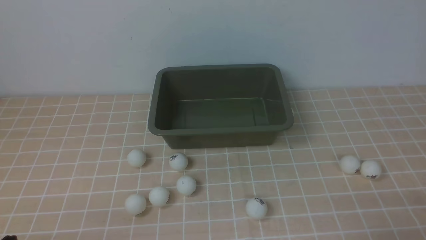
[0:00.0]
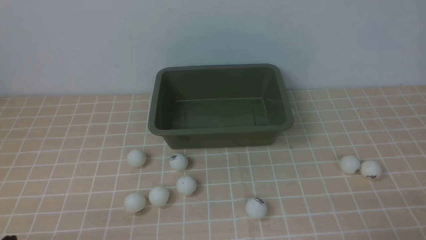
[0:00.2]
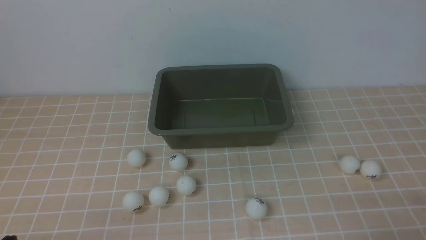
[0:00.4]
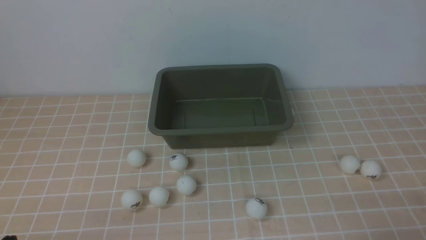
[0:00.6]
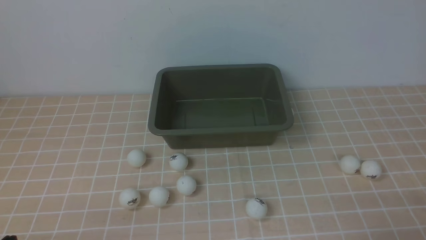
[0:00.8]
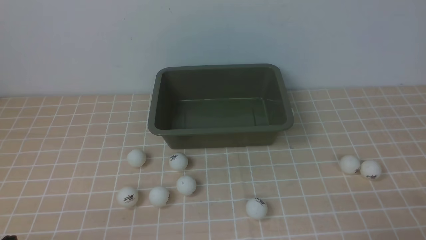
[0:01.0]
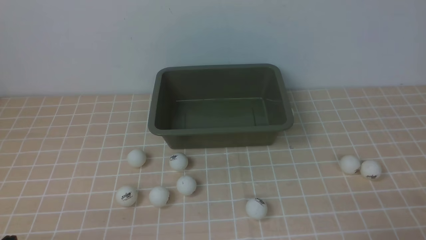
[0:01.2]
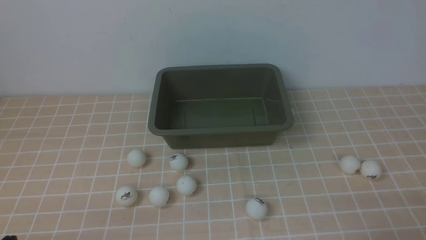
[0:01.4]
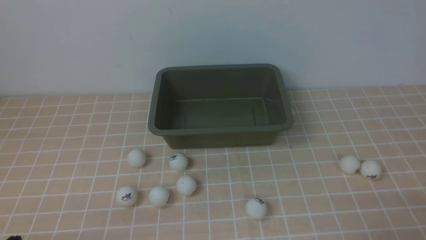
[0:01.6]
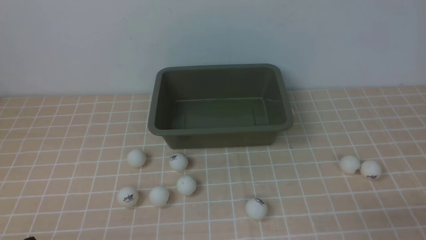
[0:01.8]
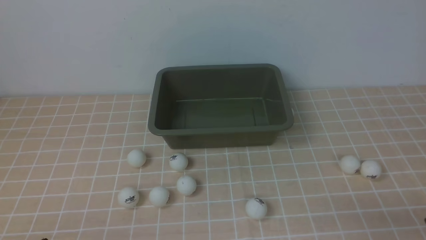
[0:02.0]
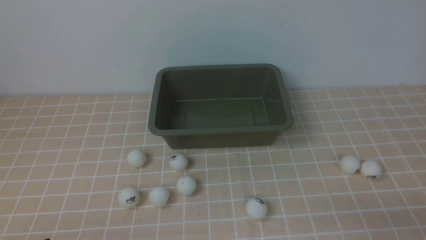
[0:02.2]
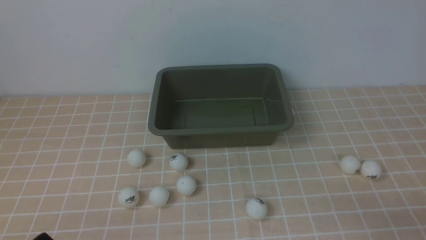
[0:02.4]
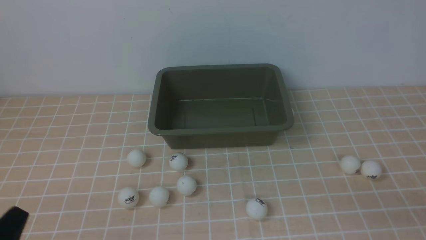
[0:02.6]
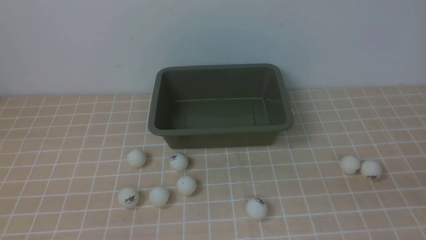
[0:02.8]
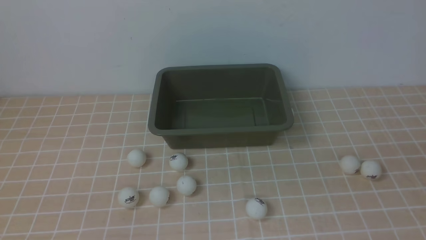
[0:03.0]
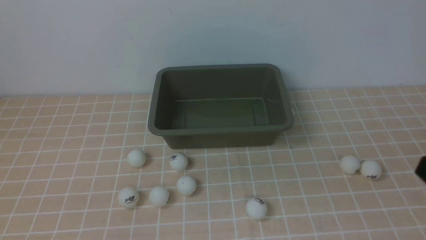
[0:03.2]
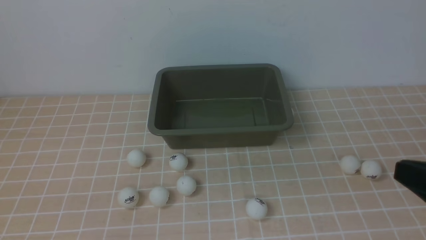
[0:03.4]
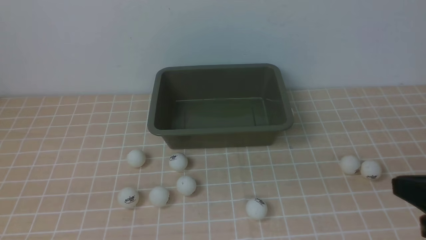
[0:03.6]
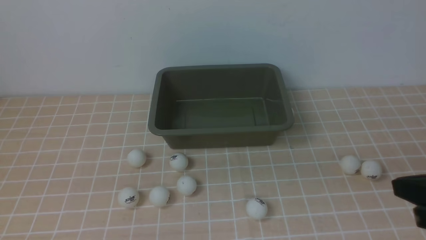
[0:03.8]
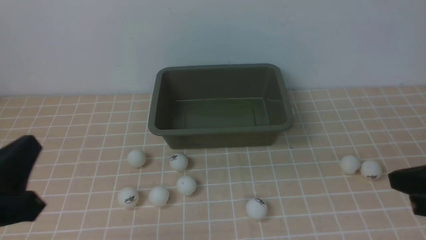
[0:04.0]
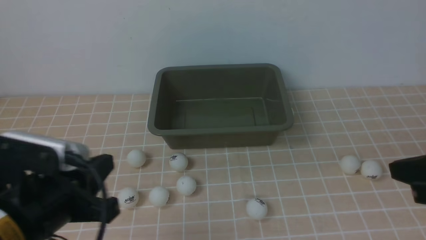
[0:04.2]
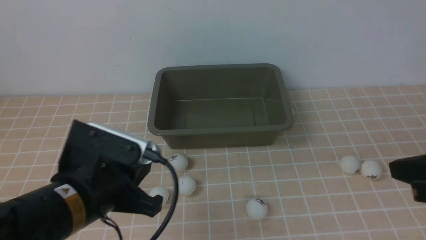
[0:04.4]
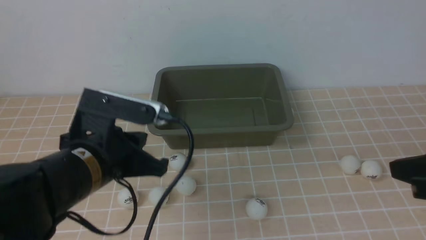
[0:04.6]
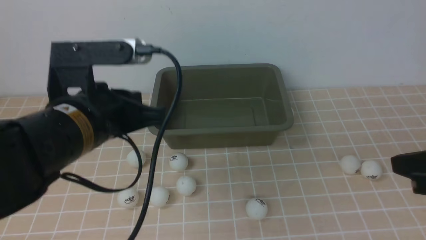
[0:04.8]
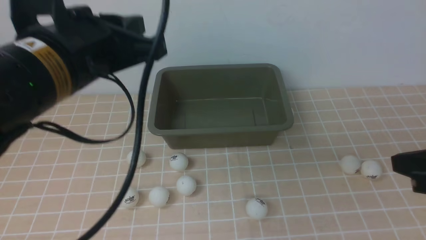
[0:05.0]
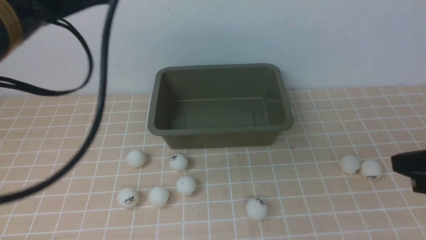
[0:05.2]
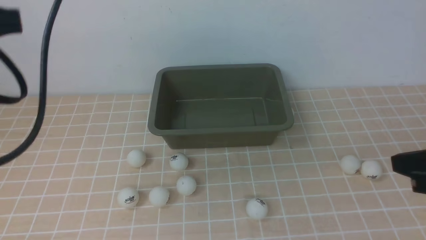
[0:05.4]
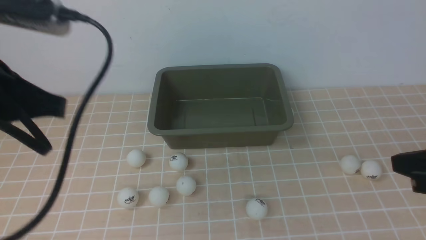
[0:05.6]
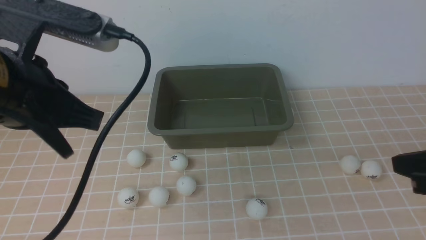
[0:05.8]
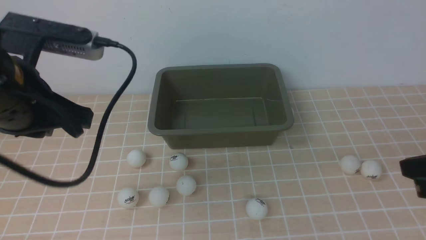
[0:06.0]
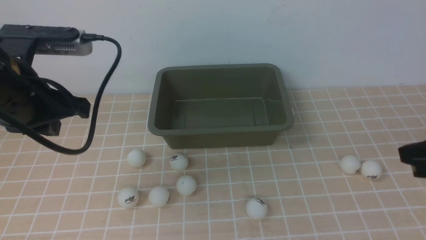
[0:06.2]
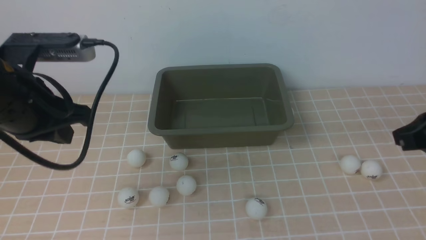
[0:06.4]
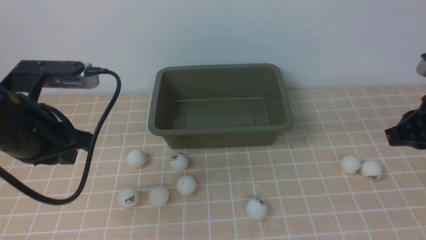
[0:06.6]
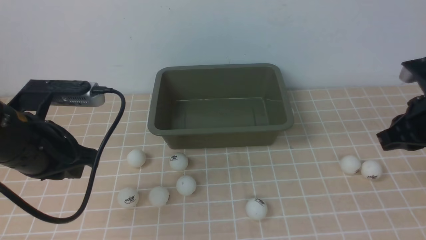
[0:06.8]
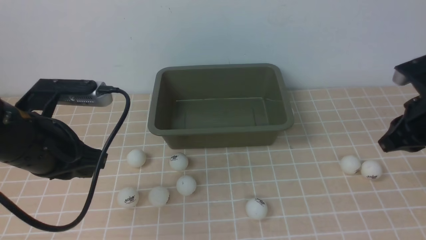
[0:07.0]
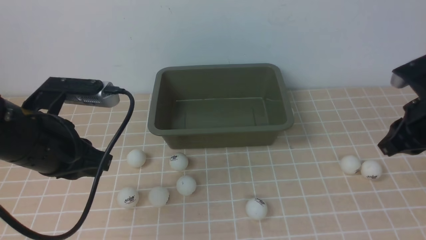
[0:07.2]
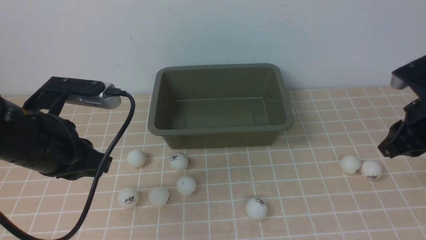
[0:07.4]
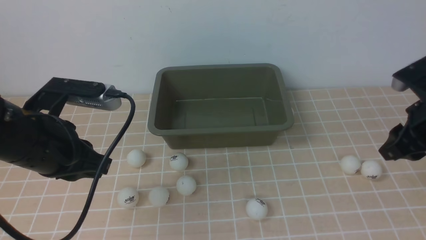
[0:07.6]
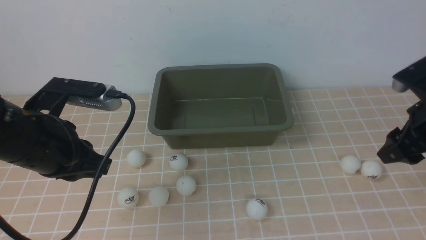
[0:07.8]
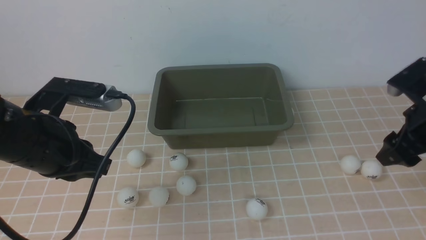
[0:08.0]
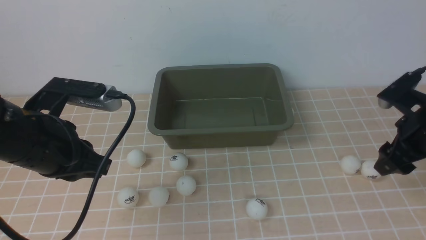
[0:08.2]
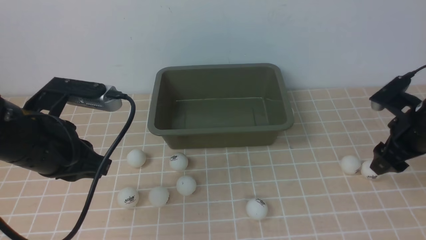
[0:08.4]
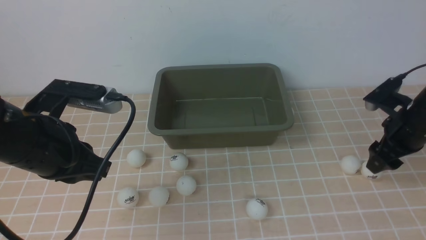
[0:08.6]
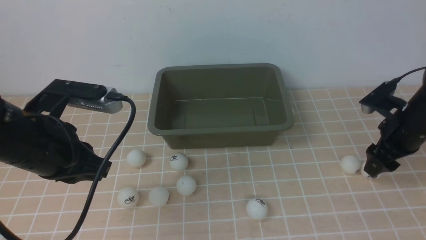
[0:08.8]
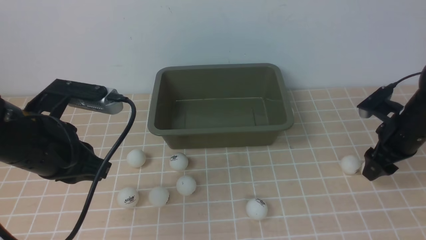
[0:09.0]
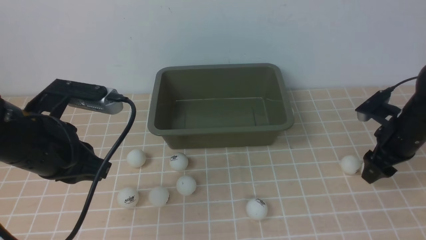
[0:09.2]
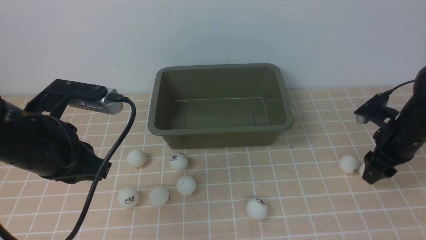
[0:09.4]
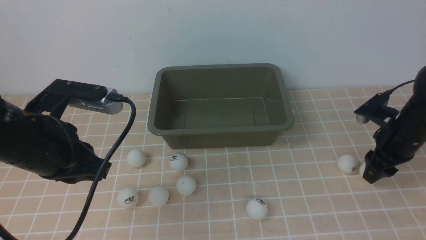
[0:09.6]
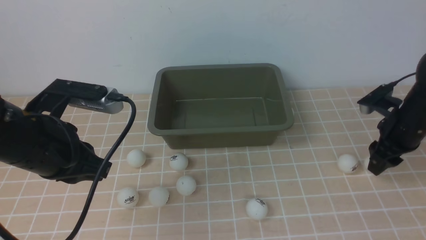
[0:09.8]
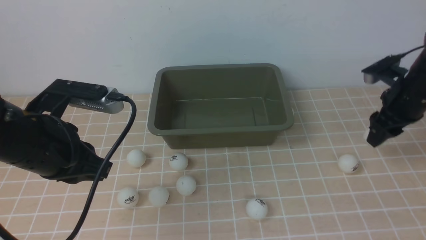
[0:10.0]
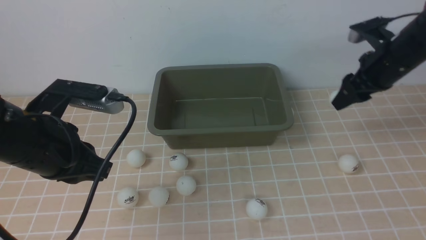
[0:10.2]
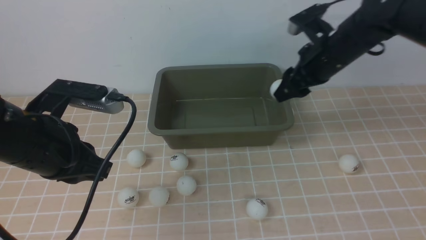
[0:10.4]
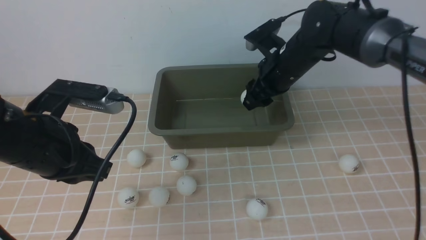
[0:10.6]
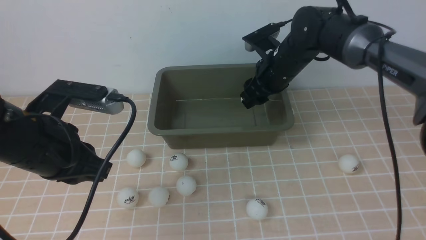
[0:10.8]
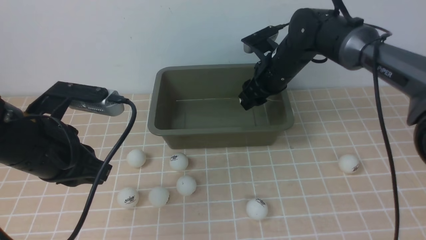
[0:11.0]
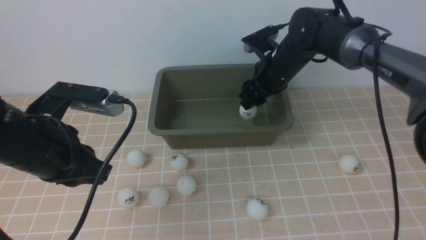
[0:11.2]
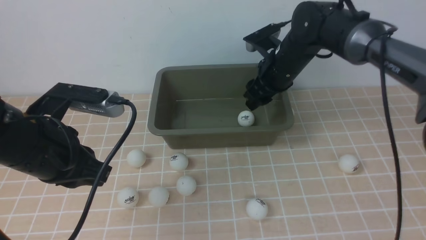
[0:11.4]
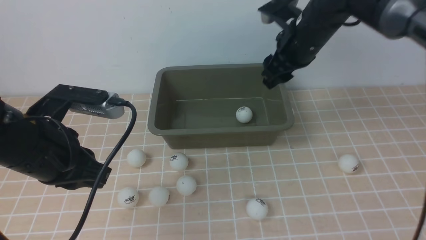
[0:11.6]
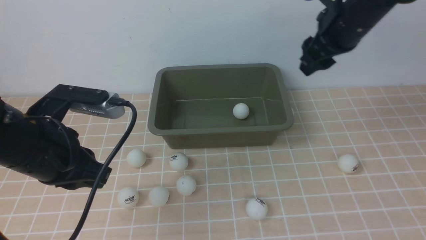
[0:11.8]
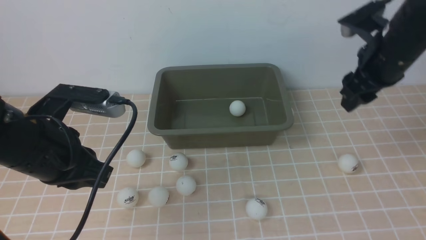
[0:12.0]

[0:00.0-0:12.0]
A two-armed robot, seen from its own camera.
Step, 0.0 to 9.8 s: use the right arm to clamp the table tennis ball closest to it.
Step, 10.0 to 11.6 s: use the right arm to put the table tennis ball into the box.
3.0 to 4.4 s: The right gripper goes approximately 10 cm forward; the left gripper travels forward and to the right by approximately 15 cm.
4.4 to 6.0 s: The left gripper is displaced upward and forward by about 15 cm.
6.0 to 7.6 s: The left gripper goes roughly 10 cm downward, while the right gripper is displaced forward by approximately 10 cm, and opens.
7.6 to 9.0 s: The right gripper heads downward and forward, covering about 10 cm, and opens.
9.0 to 10.4 s: The right gripper travels to the left, upward and forward by approximately 15 cm.
10.4 to 12.0 s: The right gripper reaches some 10 cm to the left, then returns.

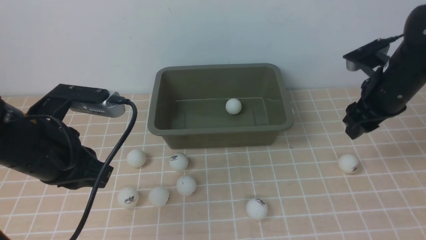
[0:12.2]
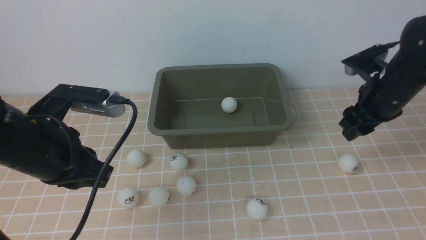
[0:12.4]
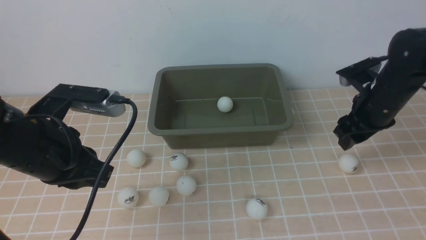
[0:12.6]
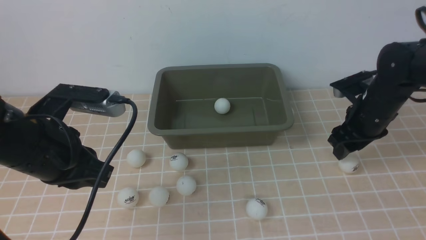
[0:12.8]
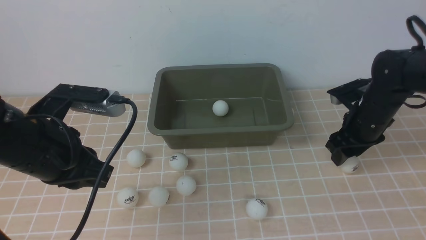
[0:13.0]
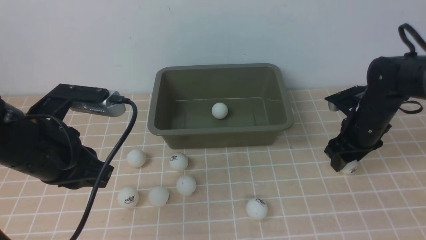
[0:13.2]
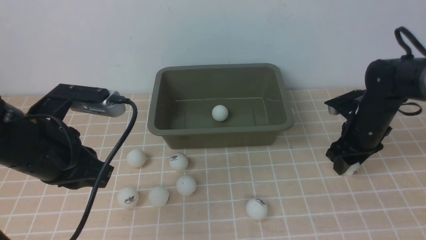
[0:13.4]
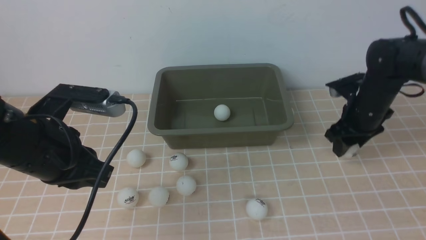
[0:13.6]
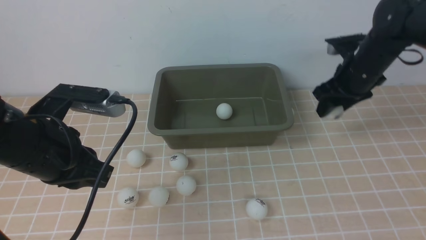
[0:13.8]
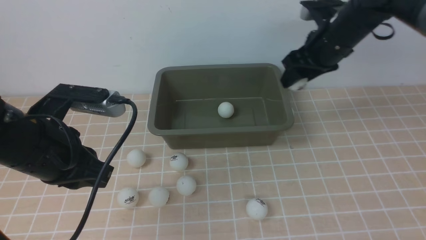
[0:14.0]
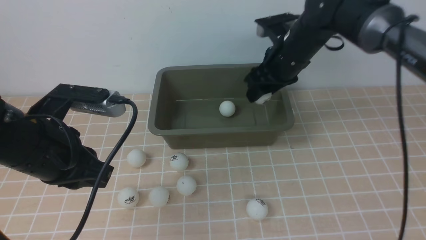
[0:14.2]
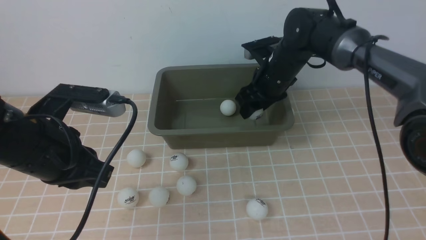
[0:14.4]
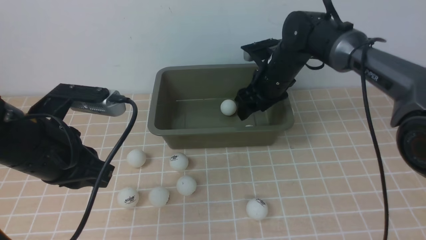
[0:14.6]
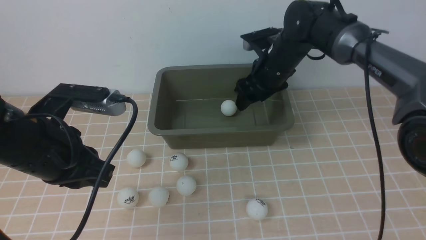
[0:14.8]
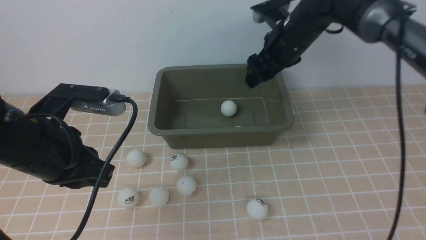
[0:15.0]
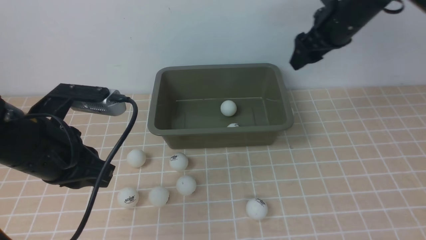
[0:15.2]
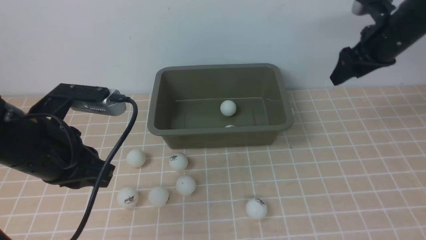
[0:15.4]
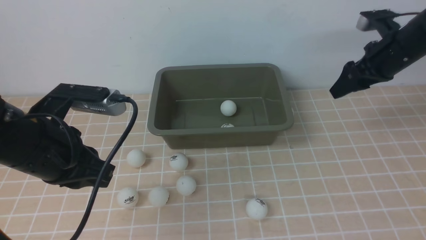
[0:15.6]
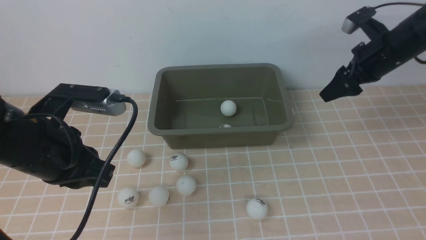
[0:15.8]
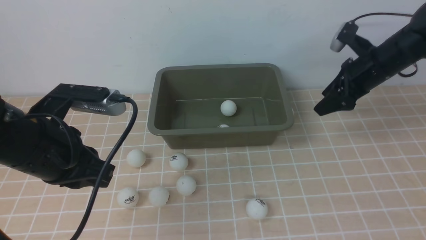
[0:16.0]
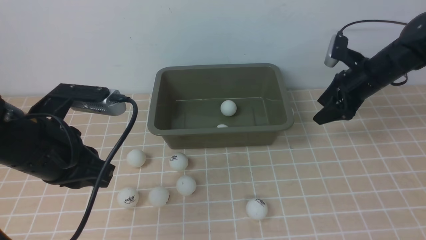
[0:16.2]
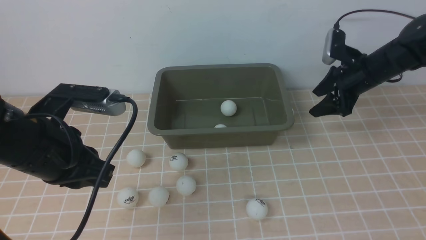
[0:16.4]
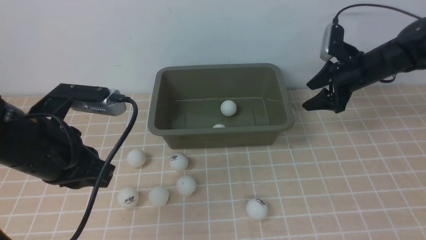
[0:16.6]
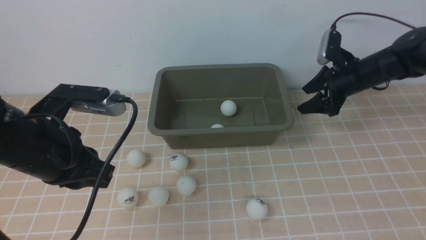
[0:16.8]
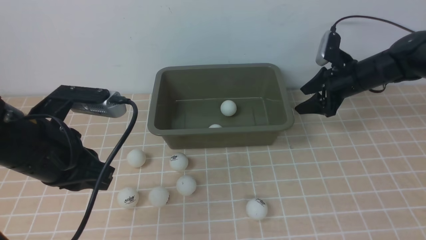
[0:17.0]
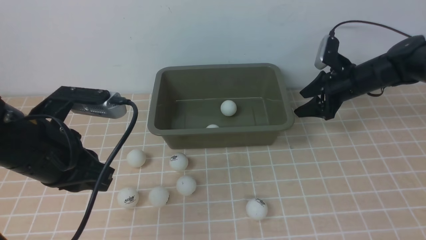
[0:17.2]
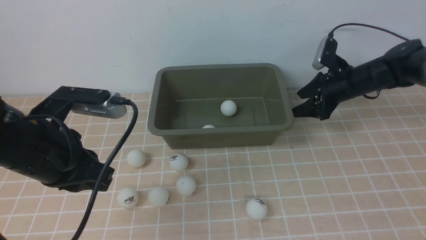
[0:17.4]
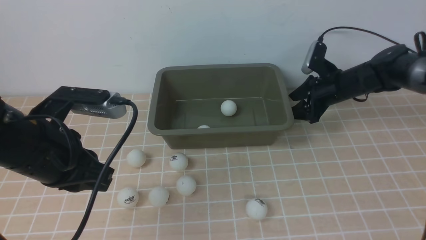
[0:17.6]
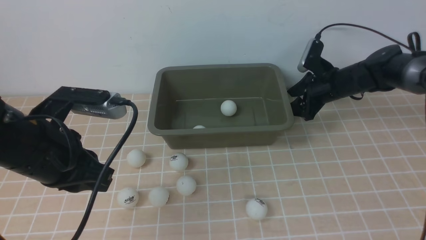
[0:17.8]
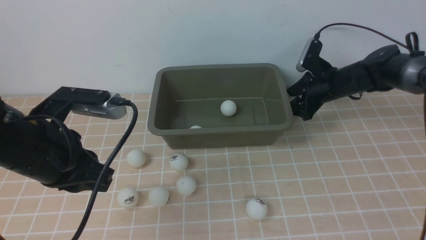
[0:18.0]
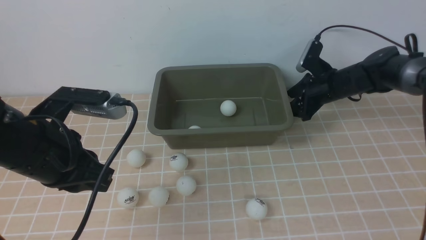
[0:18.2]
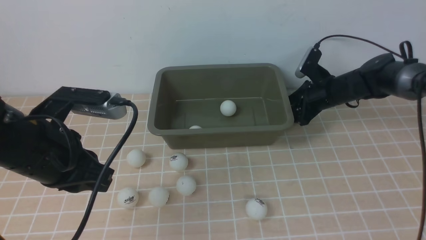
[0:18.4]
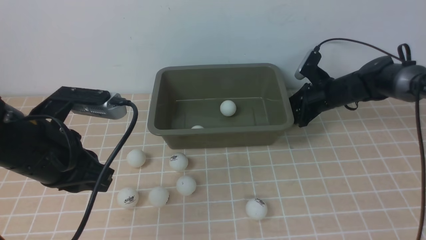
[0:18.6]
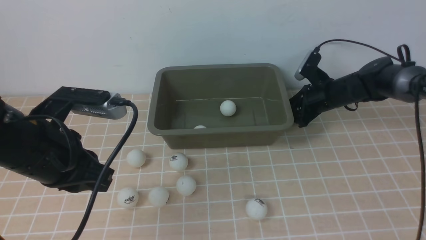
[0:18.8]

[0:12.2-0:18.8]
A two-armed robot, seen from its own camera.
Step, 12.2 to 13.6 s: use the right arm to clamp the table tennis ball closest to it.
Step, 14.0 to 15.0 s: use the right arm to put the table tennis ball into the box.
12.2 to 13.8 s: The right gripper travels downward by some 5 cm.
13.8 to 15.4 s: The right gripper travels upward by some 10 cm, and moves approximately 15 cm to the left and comes back.
15.4 to 17.2 s: The right gripper moves downward, about 15 cm.
17.2 to 18.8 s: The right gripper ends up about 5 cm from where it was.
